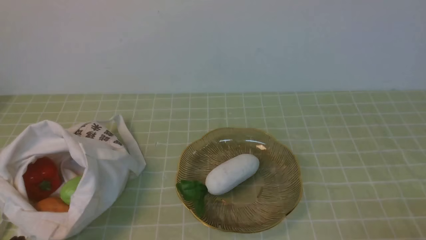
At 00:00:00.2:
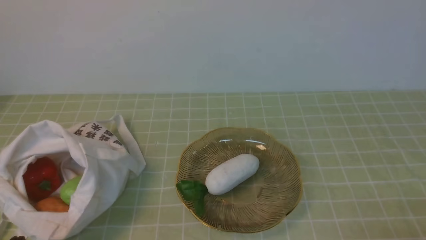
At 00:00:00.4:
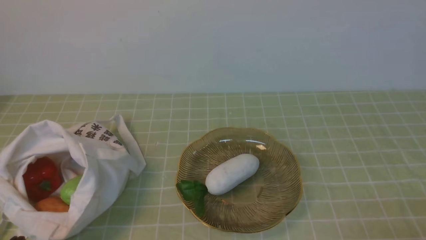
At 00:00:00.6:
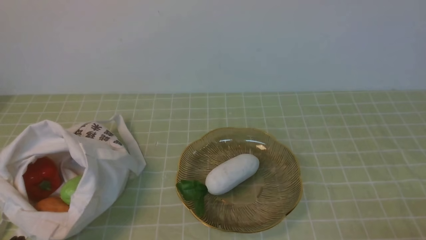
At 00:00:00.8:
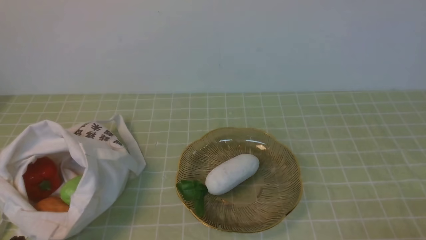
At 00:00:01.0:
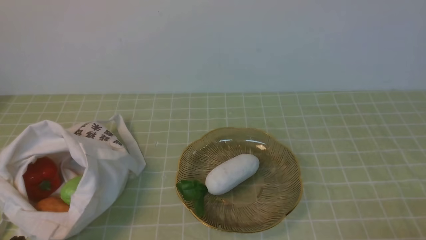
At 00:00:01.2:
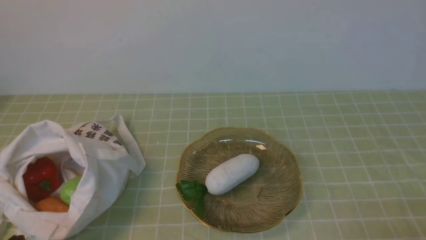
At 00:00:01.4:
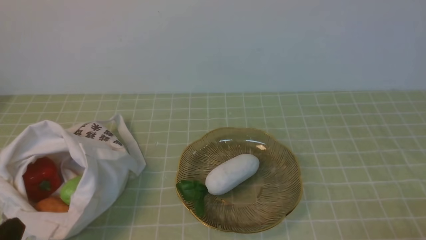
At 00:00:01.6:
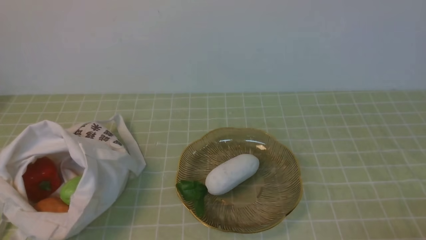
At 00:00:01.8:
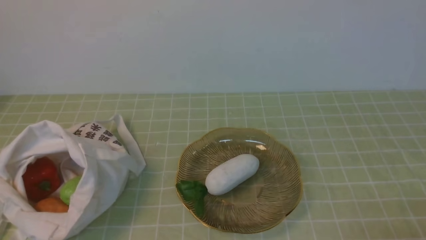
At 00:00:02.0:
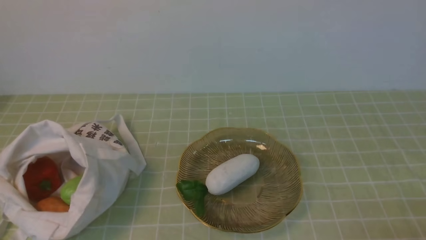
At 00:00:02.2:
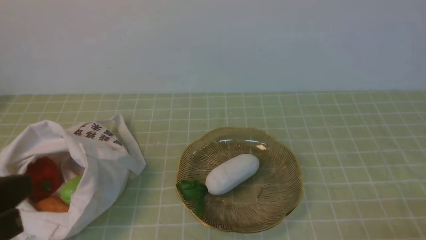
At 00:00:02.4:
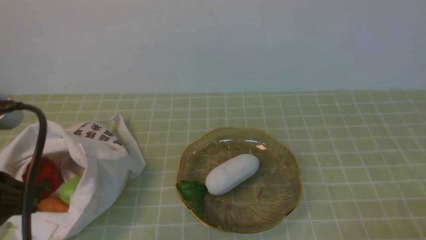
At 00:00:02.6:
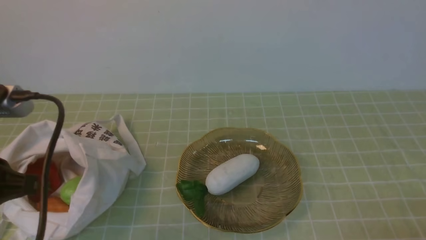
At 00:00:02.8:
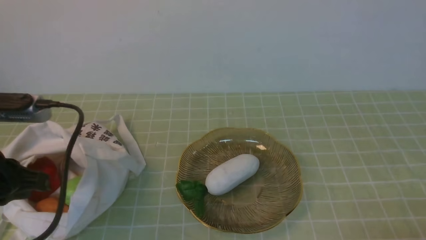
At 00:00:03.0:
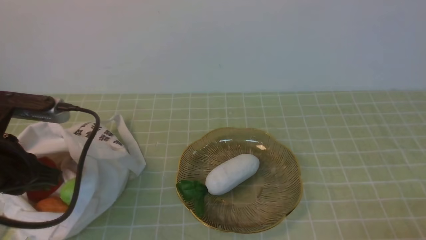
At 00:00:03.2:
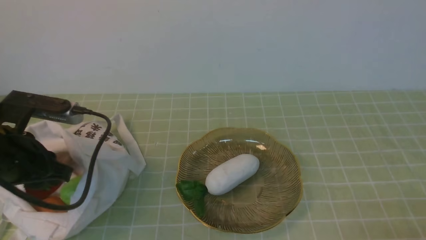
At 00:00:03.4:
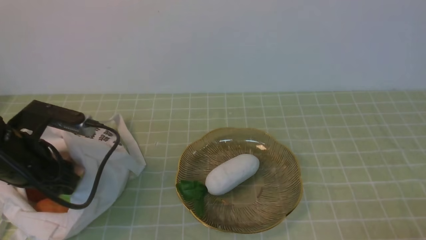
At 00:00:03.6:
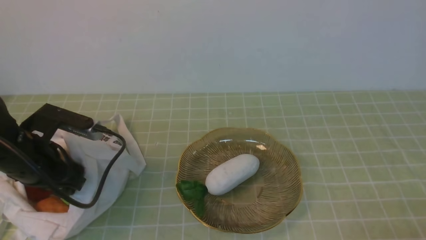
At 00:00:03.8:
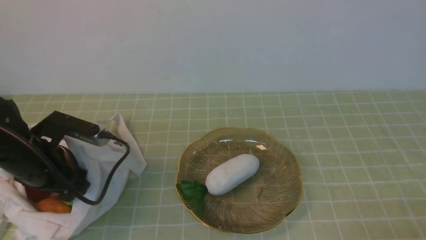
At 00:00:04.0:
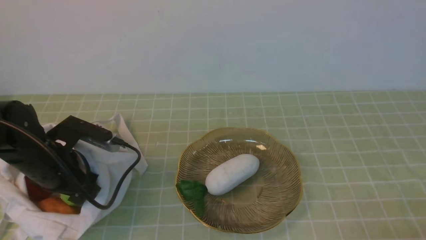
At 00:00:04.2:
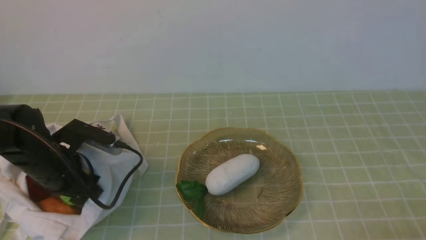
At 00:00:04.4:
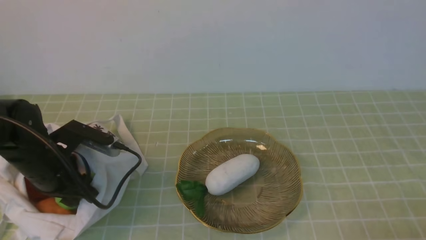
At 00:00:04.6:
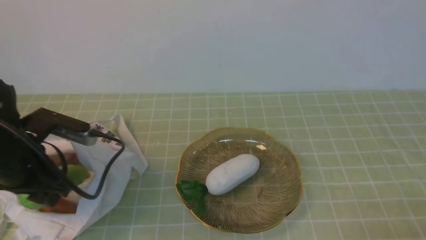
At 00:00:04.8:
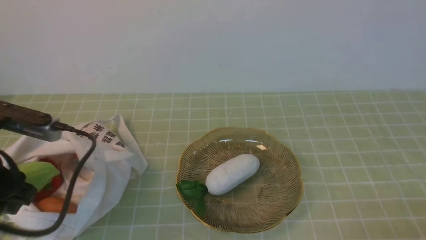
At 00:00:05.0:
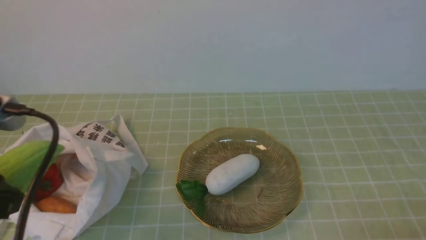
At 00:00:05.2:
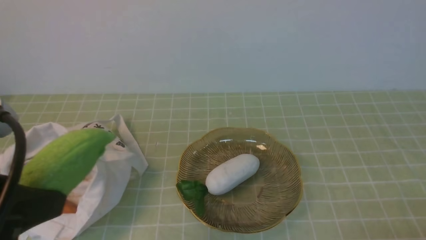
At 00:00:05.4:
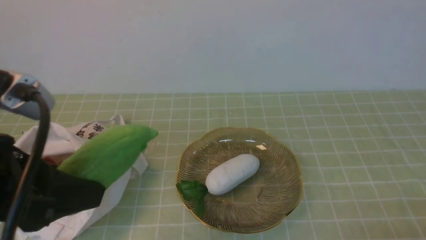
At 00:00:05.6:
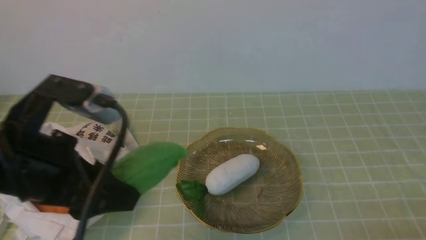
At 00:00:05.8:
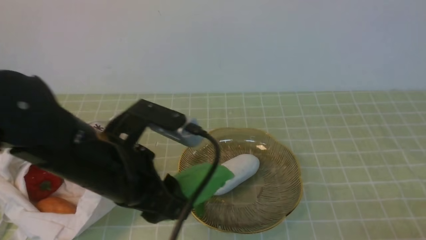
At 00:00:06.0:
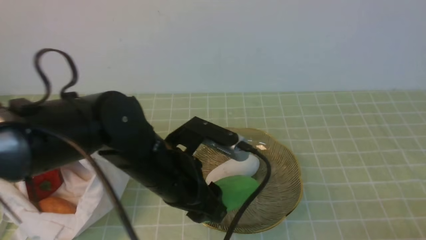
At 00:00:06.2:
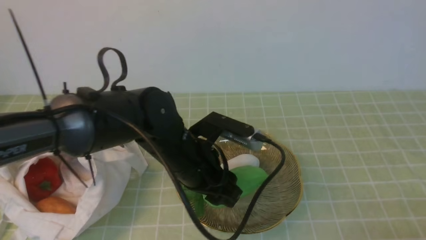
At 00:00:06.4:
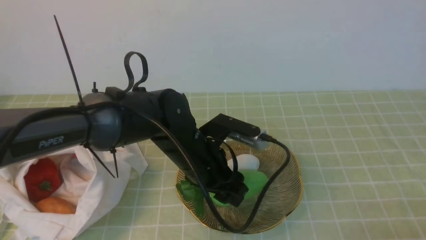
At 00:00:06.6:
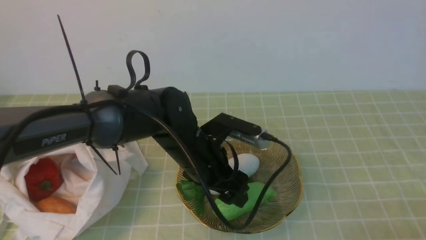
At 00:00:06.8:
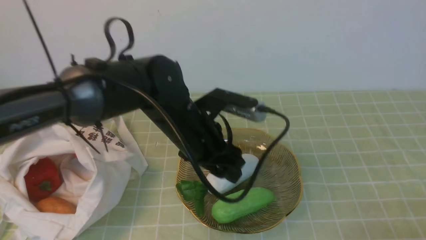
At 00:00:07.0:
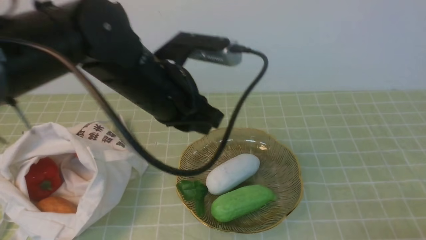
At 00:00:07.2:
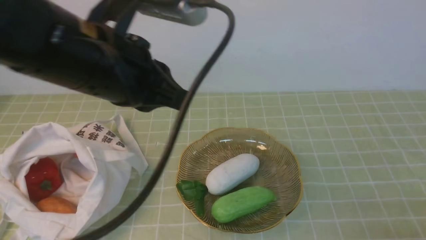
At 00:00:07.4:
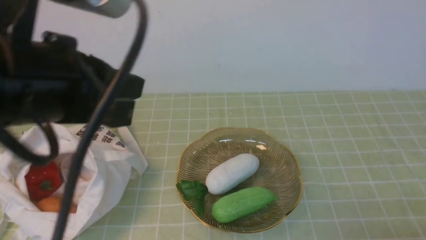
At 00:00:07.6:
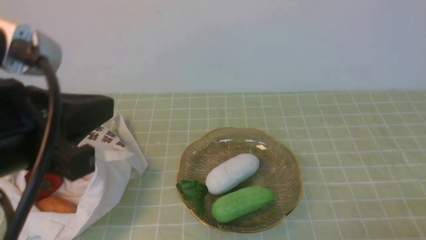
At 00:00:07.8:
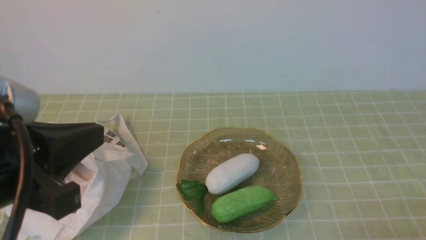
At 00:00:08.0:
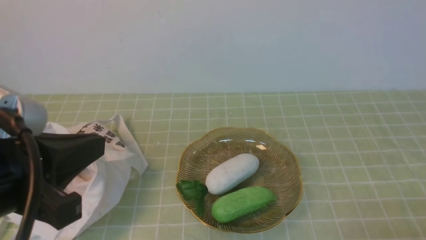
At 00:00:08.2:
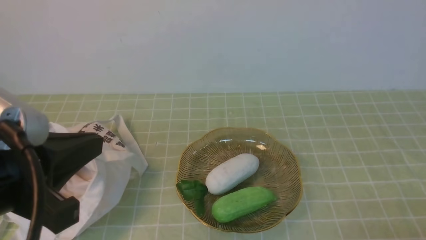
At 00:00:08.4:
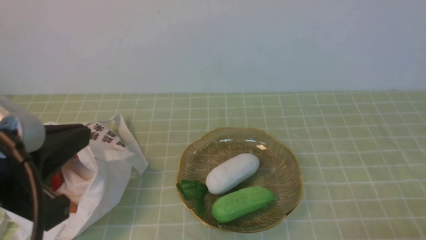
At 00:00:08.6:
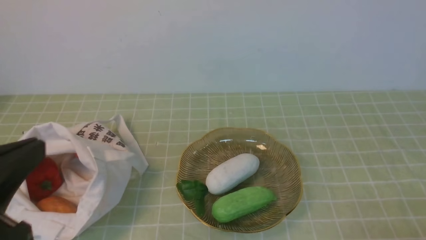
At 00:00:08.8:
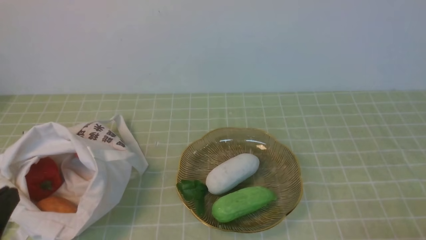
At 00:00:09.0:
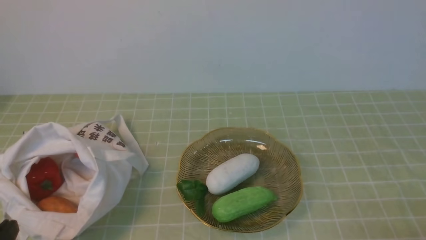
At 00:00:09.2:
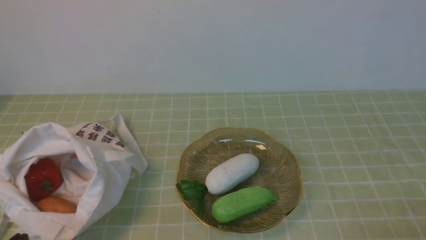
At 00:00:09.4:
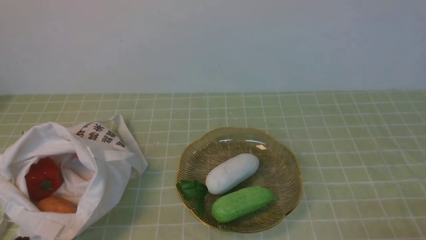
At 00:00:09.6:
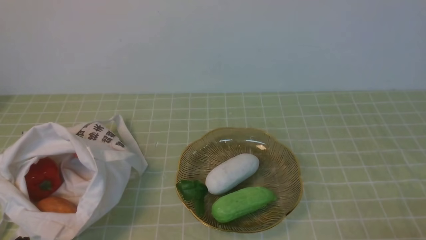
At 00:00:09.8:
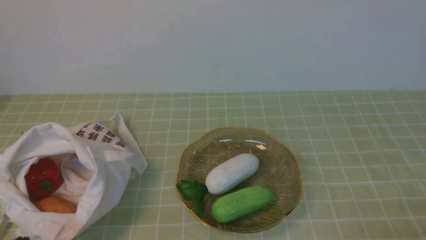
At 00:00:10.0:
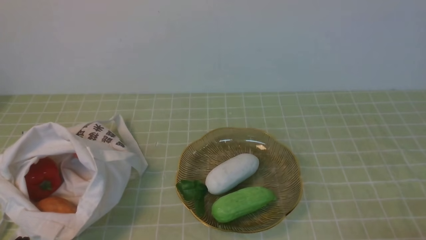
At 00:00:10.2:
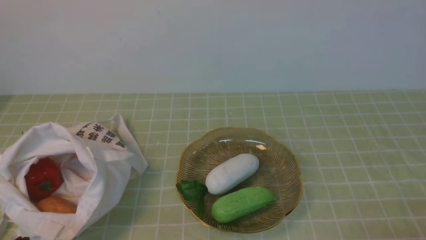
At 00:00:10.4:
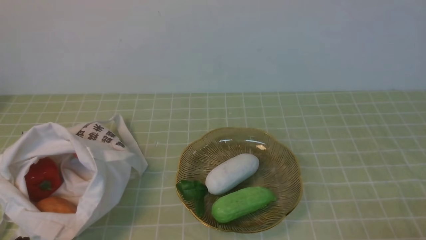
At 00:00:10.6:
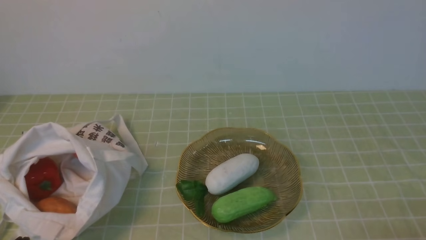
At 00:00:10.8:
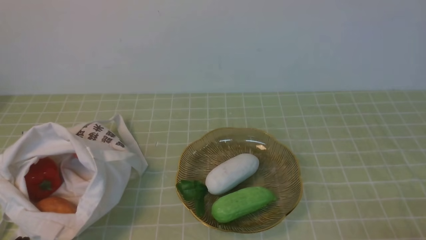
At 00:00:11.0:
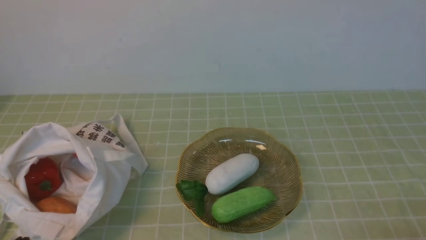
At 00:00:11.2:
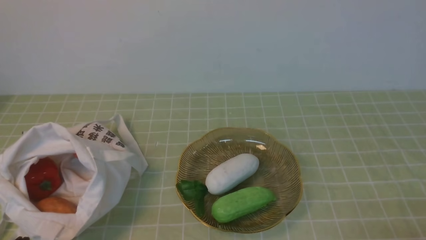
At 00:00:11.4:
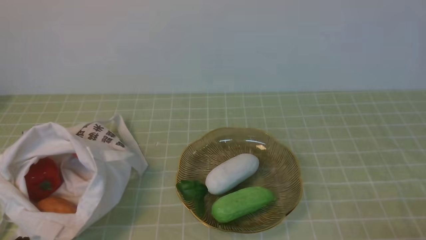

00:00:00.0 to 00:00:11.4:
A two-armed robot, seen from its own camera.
Task of the whole recording: take vegetables from bag on green coffee tablecloth place on plate.
Step, 00:00:00.0 to 00:00:04.2: Grasp the bitter melon with left gripper.
Step, 00:00:04.4 to 00:00:06.8: Place the bitter melon on the plate with left gripper.
00:00:01.4 to 00:00:02.8: The left gripper heads upward and forward, covering approximately 20 cm.
00:00:02.8 to 00:00:04.2: The left gripper heads downward and forward, covering about 20 cm, and opens up.
00:00:04.2 to 00:00:05.6: The left gripper shifts about 20 cm upward and backward.
00:00:05.6 to 00:00:07.2: The left gripper heads forward and to the right, covering roughly 15 cm, and closes.
00:00:07.2 to 00:00:08.6: The left gripper is displaced backward and to the left by some 20 cm.
00:00:08.6 to 00:00:10.0: The left gripper shifts some 15 cm downward.
00:00:10.0 to 00:00:11.4: The two grippers keep their place.
